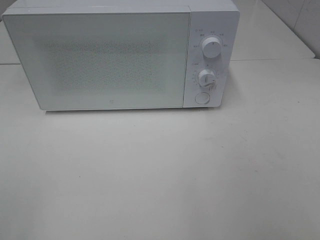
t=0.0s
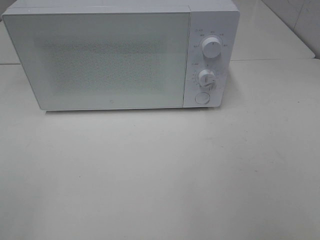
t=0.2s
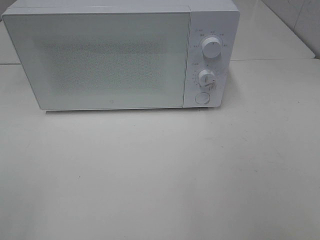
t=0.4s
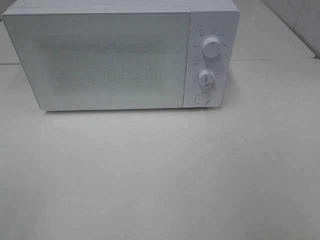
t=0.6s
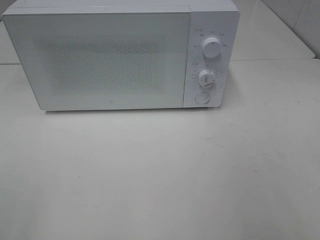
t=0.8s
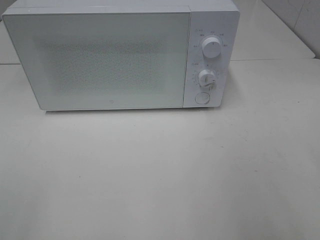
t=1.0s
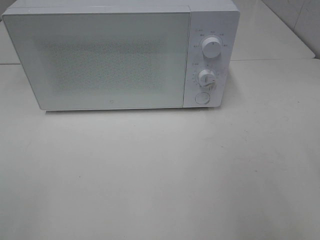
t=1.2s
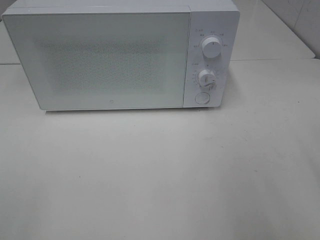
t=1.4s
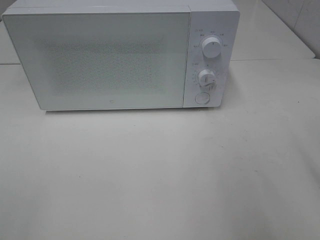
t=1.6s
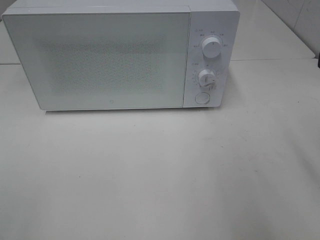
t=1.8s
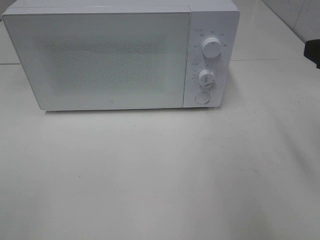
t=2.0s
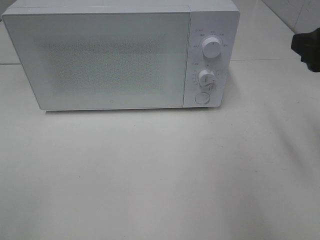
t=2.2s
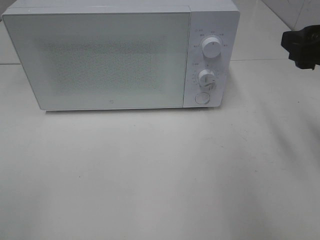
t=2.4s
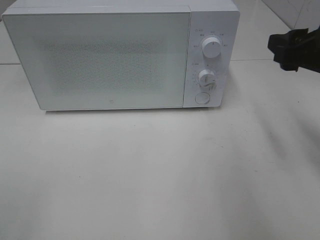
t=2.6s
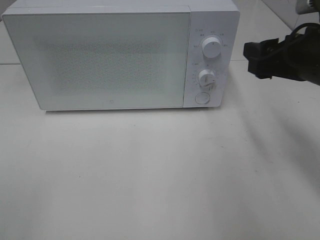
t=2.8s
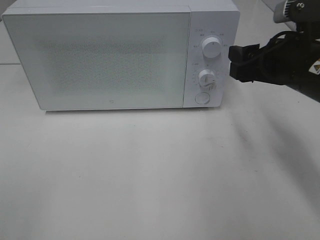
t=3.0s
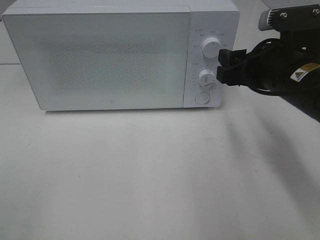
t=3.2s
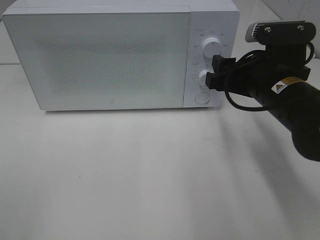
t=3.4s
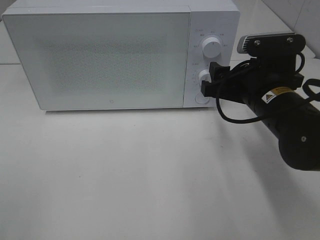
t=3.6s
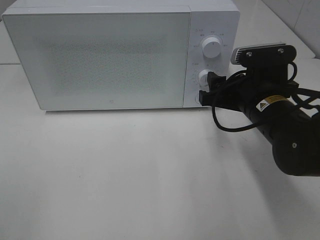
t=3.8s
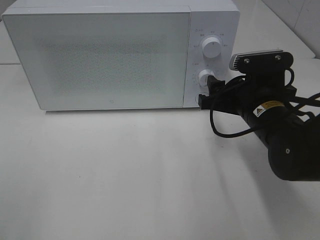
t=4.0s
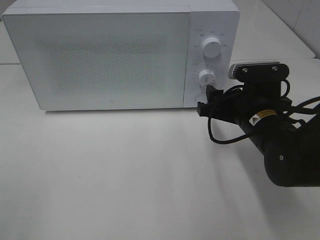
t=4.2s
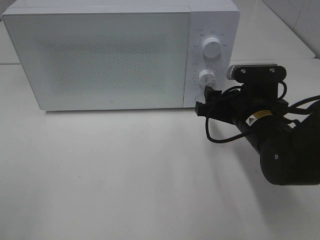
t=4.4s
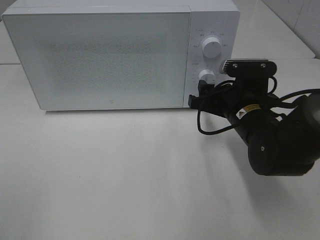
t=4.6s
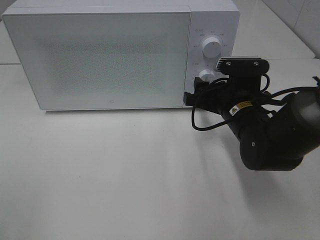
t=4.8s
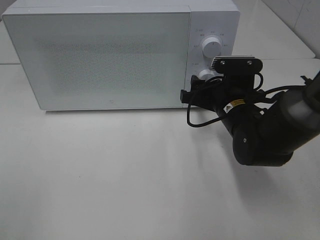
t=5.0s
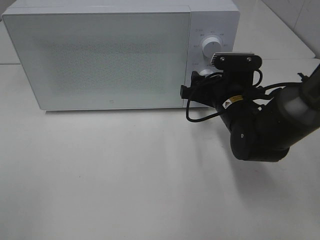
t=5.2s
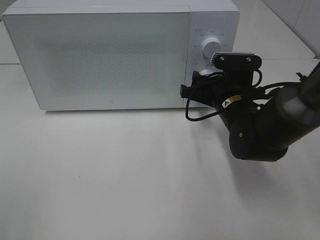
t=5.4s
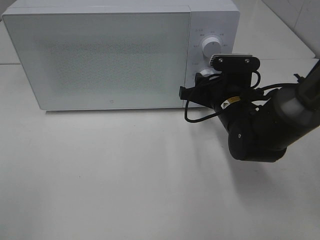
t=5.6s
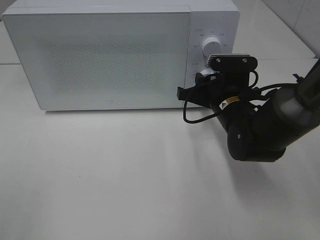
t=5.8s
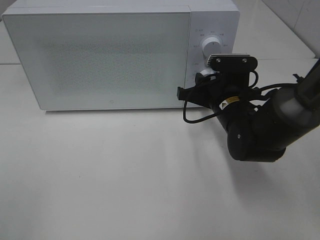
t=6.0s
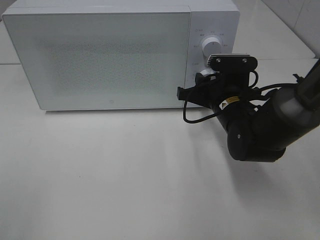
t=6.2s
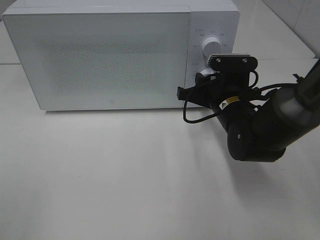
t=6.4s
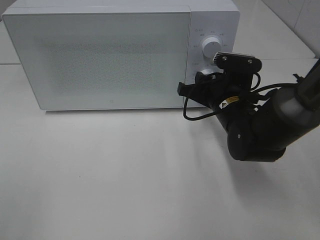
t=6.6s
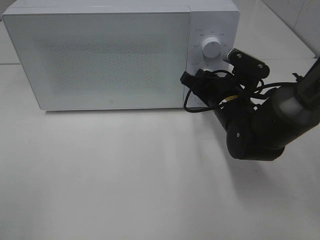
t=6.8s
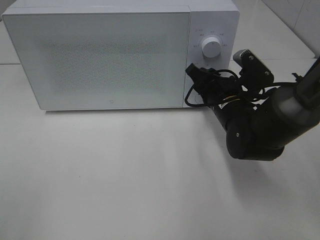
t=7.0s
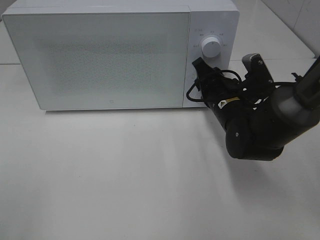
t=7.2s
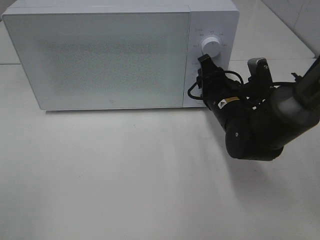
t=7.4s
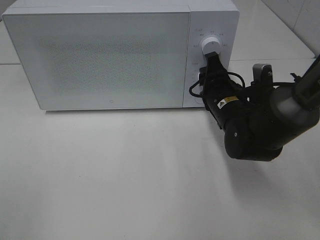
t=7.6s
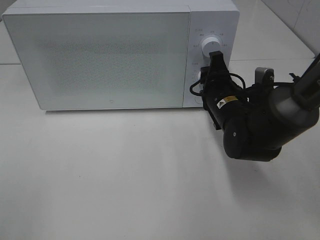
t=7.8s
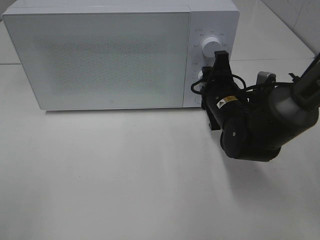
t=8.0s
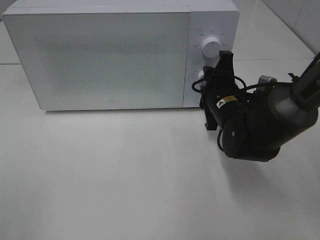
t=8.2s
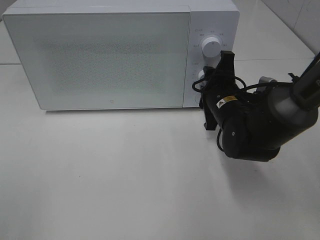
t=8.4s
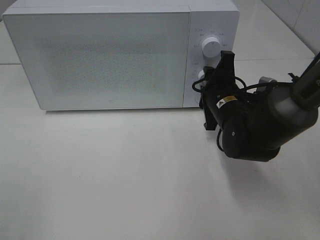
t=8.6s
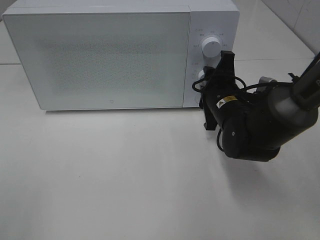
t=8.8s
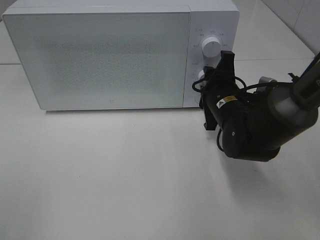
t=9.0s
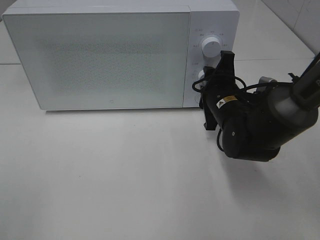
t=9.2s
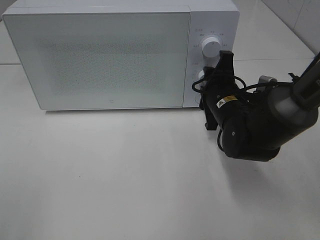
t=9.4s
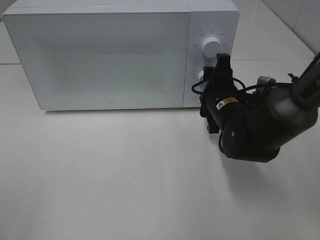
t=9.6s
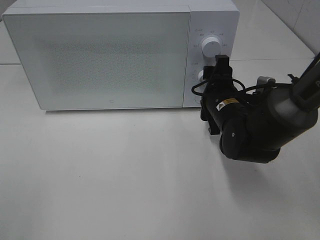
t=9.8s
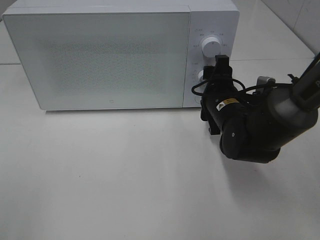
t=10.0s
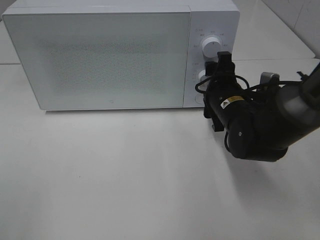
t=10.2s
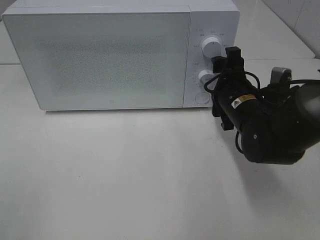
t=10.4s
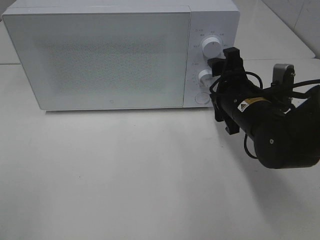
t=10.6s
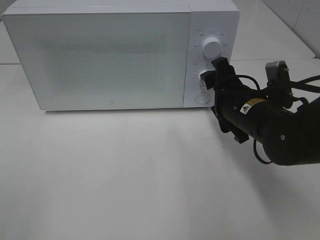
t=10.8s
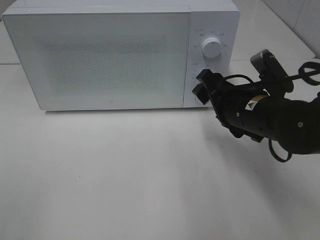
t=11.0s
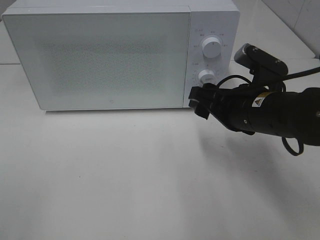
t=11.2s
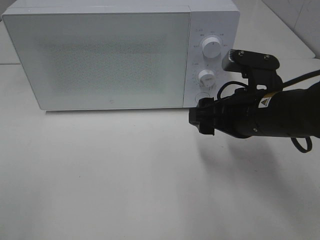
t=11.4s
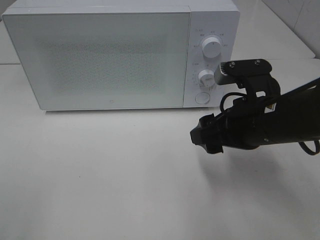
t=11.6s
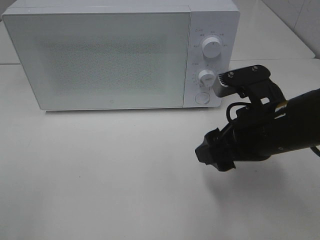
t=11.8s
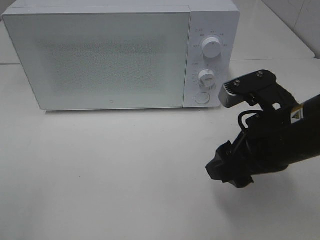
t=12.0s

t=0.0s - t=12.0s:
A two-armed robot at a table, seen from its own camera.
Task of the whole recording: Heat Sandwich.
Step, t=0.0s - t=11.2s: Right hand: twist timer button.
t=1.6s - t=3.0s: The right gripper travels forward, to the left and downward by approximately 15 cm.
t=3.0s - t=4.4s: The right gripper is displaced downward by about 10 cm.
t=4.4s - t=6.0s: The right gripper moves roughly 5 cm, and closes.
t=7.6s - t=9.0s: The grippers stay close to where they were, moving slightly.
t=9.0s - t=10.4s: The right gripper opens its fingers.
t=10.4s - t=12.0s: The right gripper travels backward and upward by about 15 cm.

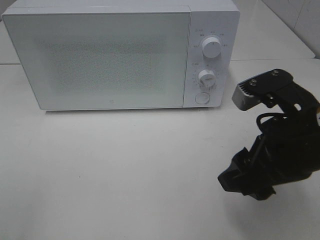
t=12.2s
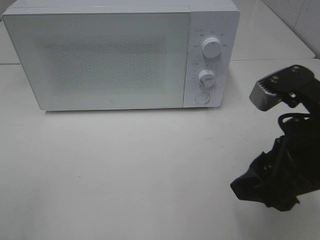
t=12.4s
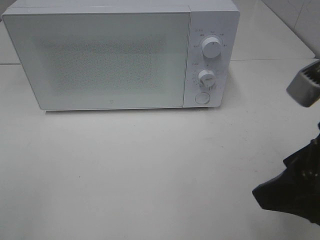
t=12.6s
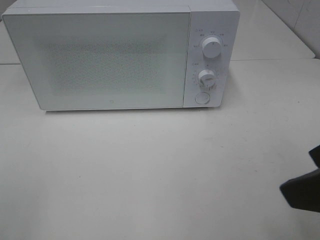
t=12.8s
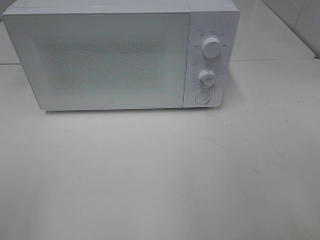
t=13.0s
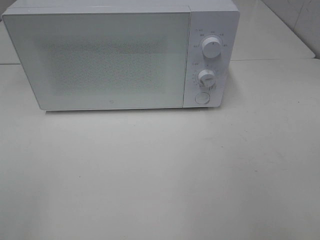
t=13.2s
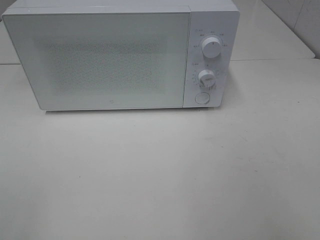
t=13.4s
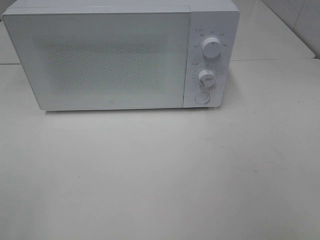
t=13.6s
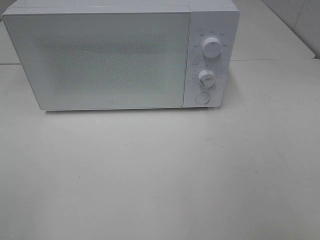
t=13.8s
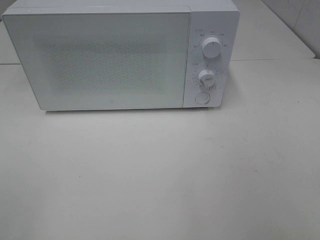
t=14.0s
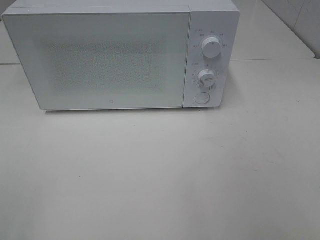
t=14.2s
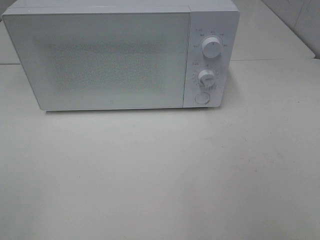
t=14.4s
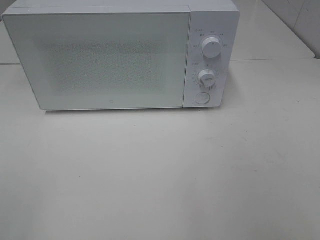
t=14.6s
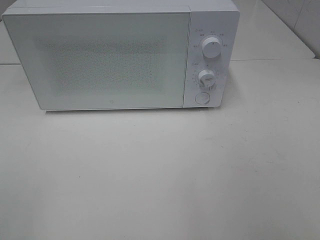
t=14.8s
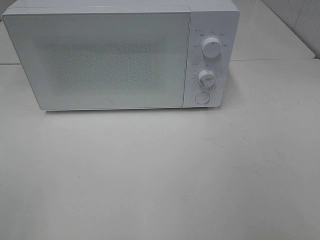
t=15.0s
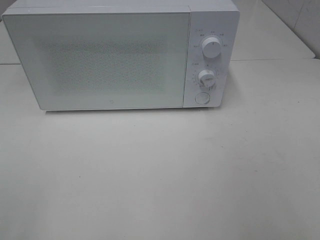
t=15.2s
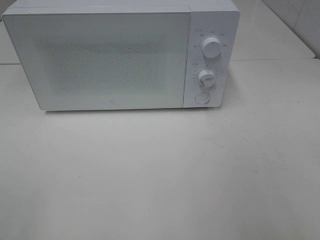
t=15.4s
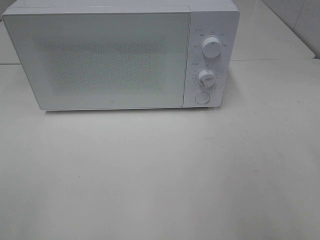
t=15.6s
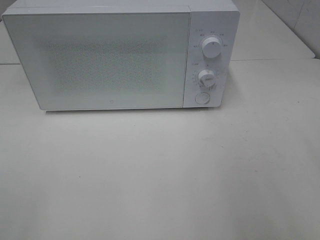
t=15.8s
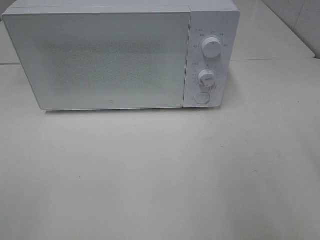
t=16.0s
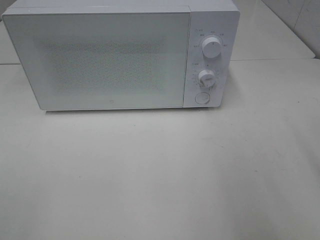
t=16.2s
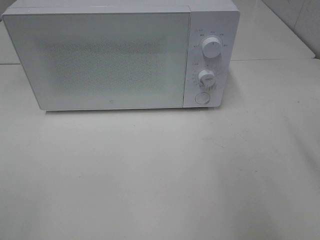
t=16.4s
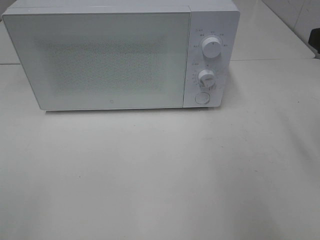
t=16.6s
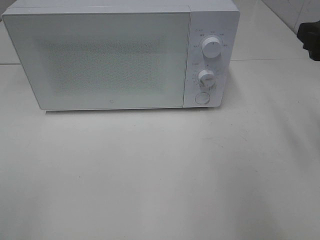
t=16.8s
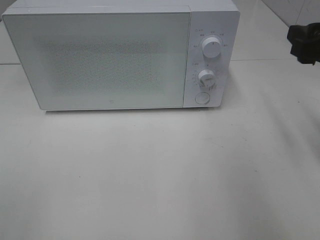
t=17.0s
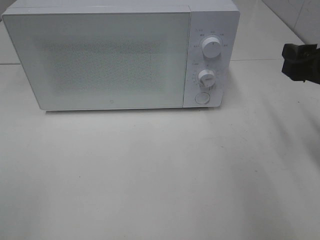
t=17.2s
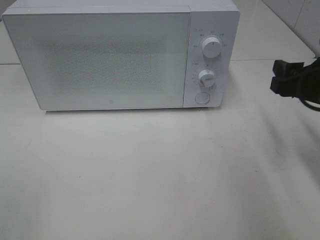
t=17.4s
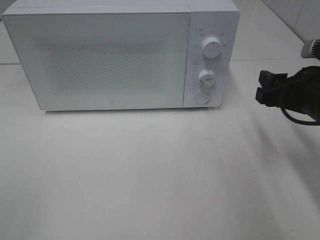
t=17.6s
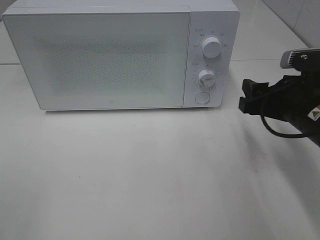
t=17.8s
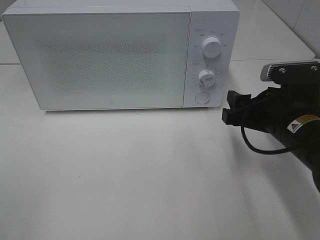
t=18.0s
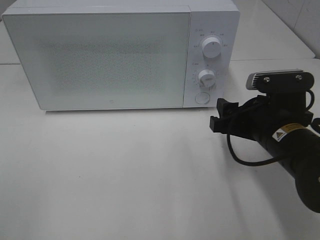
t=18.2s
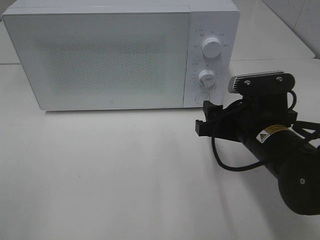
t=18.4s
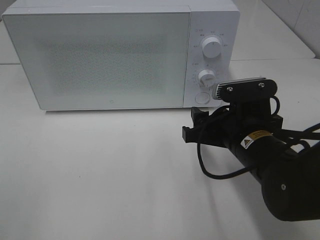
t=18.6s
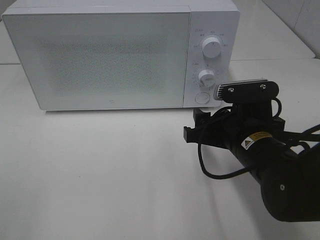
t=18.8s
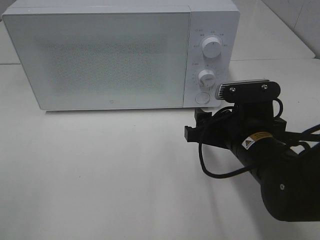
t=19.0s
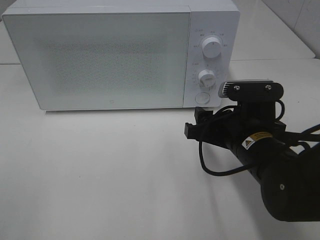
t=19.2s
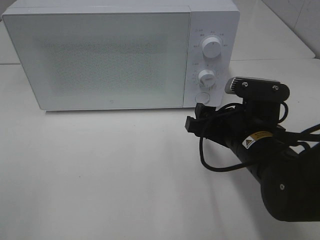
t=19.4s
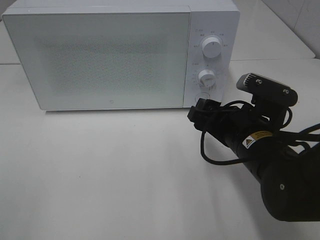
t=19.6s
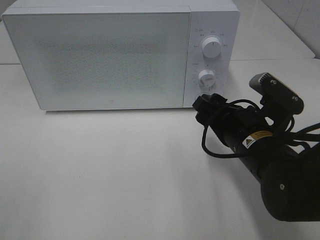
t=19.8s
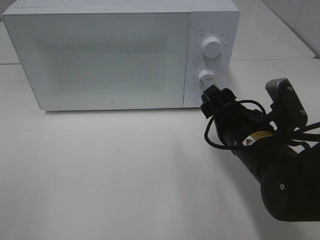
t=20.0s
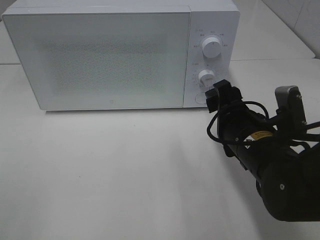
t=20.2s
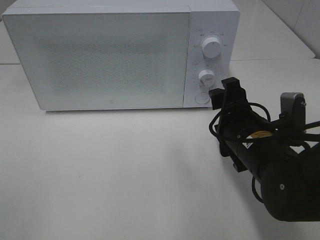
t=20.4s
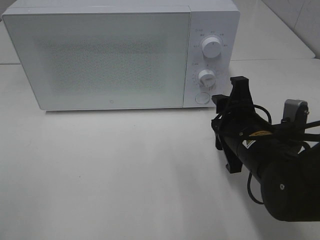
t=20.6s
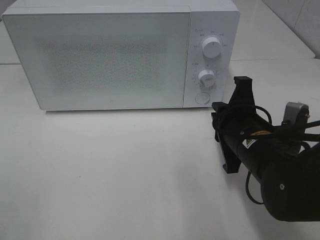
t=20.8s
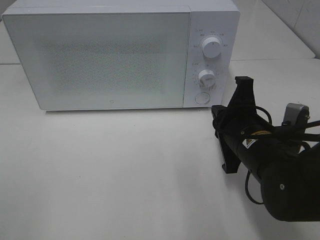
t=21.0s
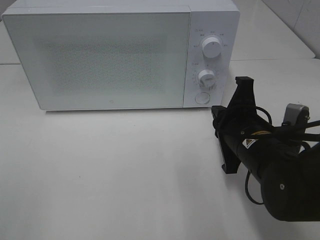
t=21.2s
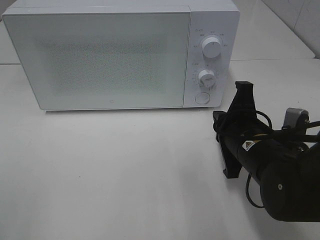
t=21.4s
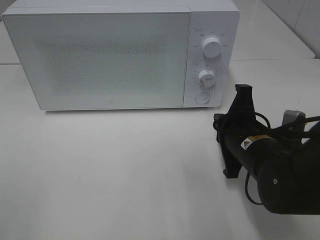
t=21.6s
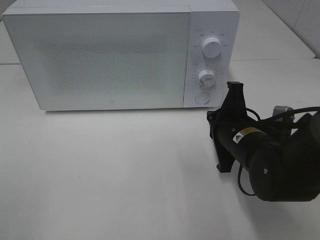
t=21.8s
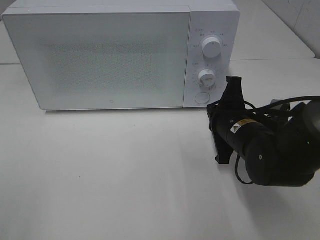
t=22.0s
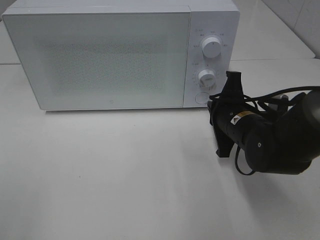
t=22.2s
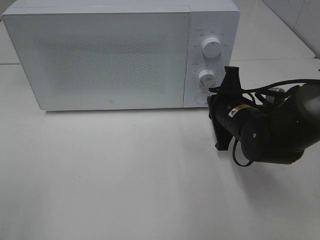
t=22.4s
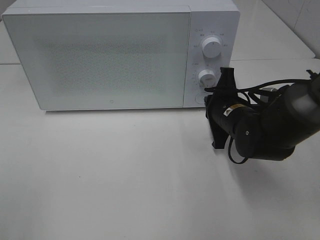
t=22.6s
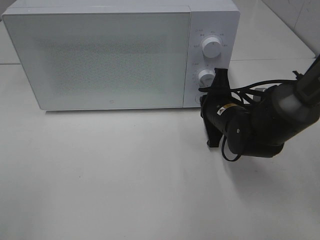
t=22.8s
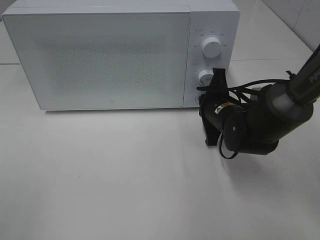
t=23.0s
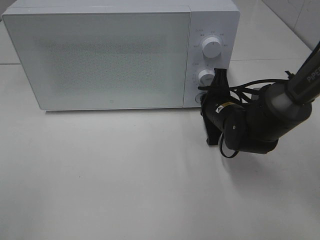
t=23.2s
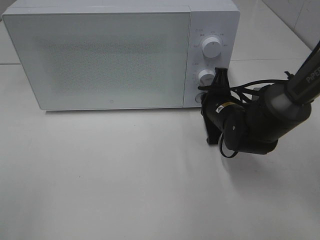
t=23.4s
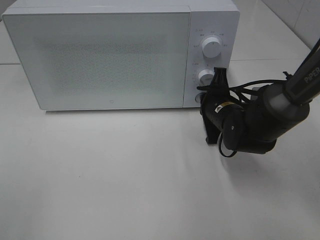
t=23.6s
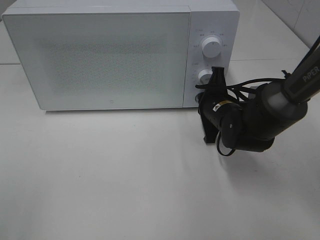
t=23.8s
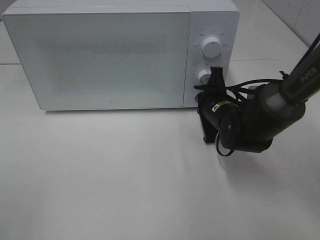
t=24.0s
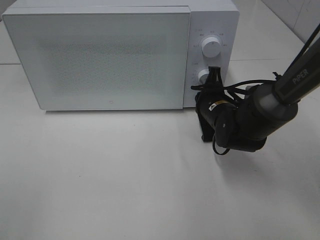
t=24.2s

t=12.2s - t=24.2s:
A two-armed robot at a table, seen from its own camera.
Task of the whole recording: Heat Sandwich.
t=12.2s - t=13.8s: The right gripper is displaced backward, to the right and upward by some 20 cm.
t=16.6s - t=18.2s: The right gripper is displaced downward and to the left by approximately 15 cm.
t=19.8s - t=21.2s: The right gripper closes.
t=21.2s - t=22.6s: The right gripper is displaced forward by roughly 10 cm.
t=22.6s - t=24.2s: The grippers stay close to where they were, moving slightly.
